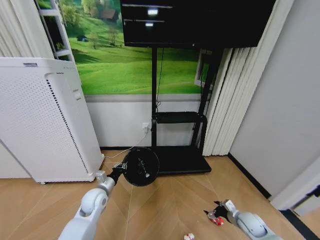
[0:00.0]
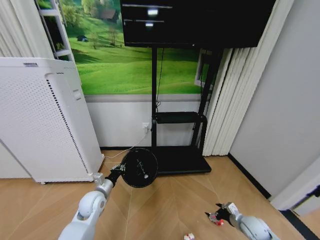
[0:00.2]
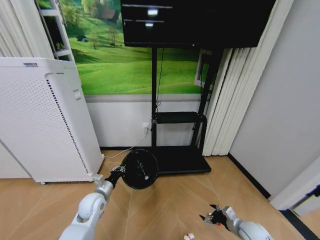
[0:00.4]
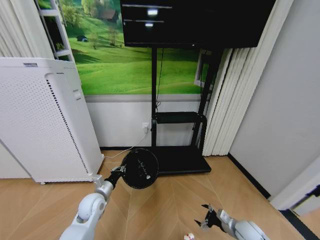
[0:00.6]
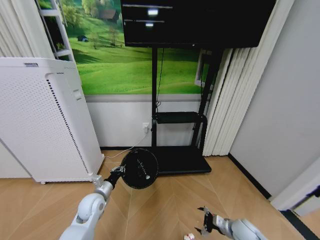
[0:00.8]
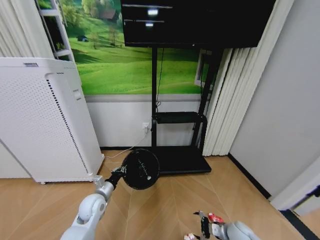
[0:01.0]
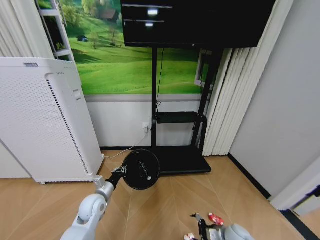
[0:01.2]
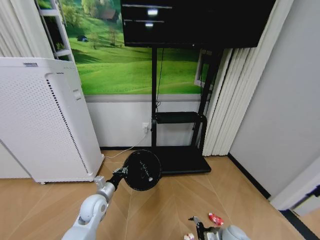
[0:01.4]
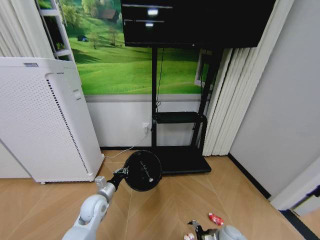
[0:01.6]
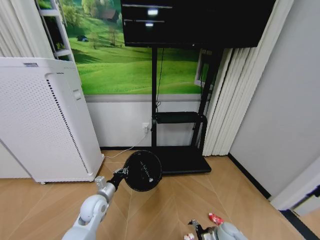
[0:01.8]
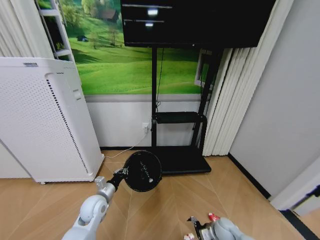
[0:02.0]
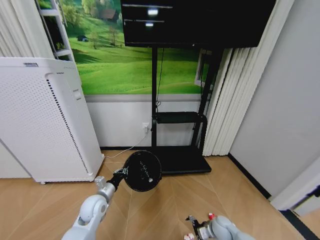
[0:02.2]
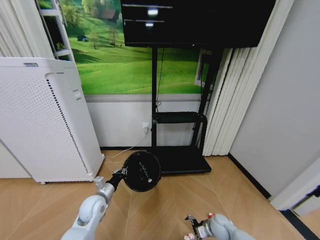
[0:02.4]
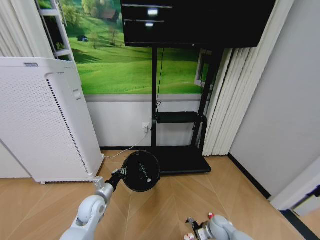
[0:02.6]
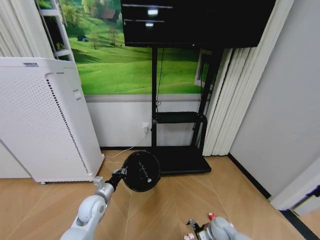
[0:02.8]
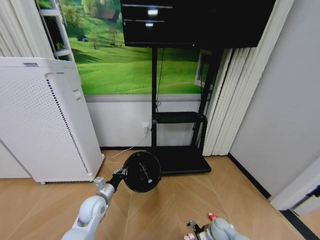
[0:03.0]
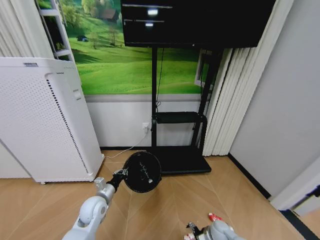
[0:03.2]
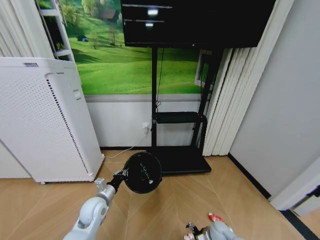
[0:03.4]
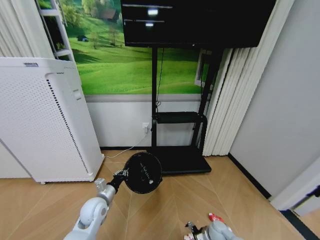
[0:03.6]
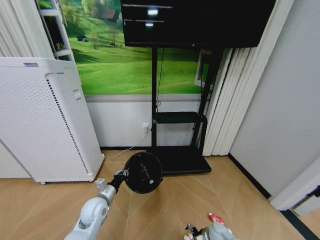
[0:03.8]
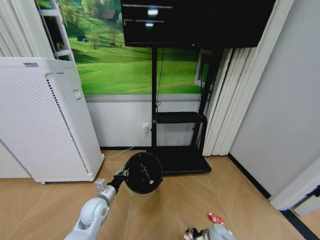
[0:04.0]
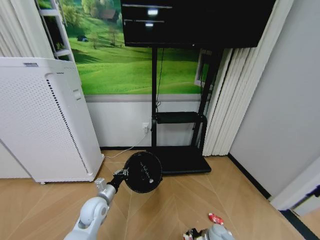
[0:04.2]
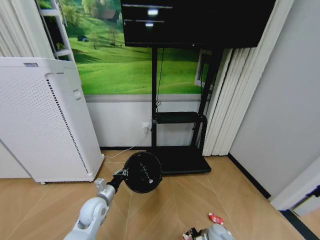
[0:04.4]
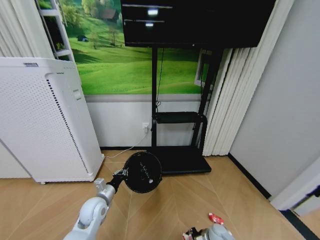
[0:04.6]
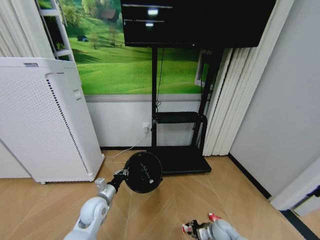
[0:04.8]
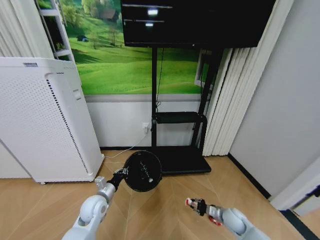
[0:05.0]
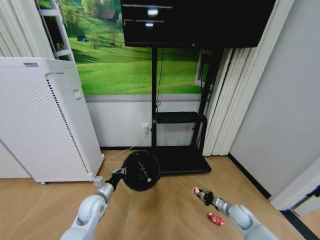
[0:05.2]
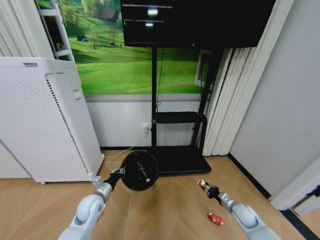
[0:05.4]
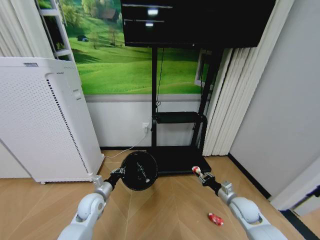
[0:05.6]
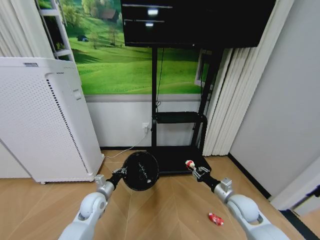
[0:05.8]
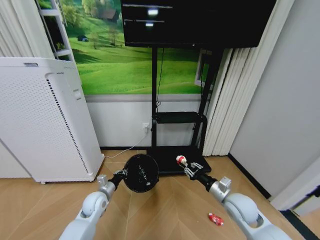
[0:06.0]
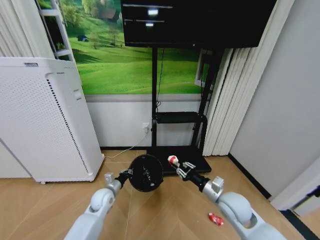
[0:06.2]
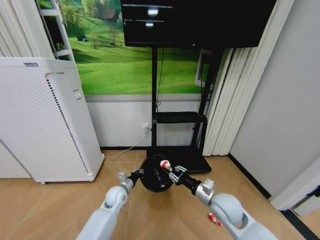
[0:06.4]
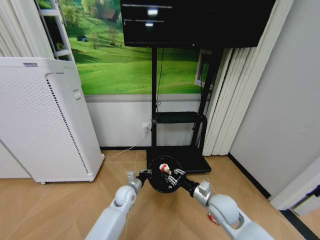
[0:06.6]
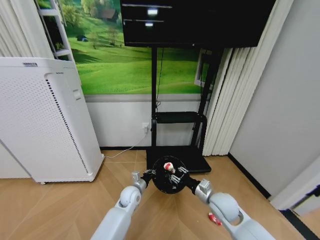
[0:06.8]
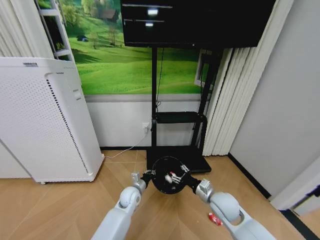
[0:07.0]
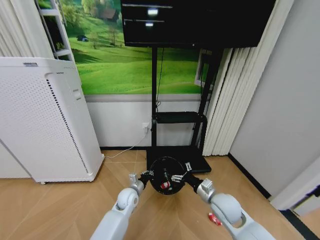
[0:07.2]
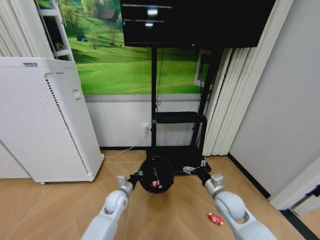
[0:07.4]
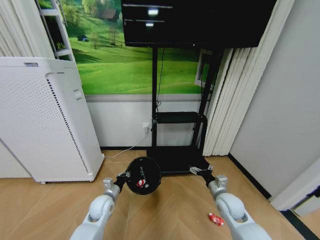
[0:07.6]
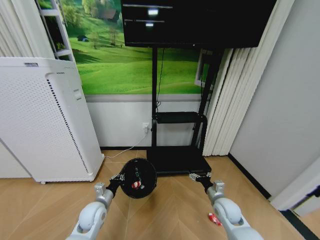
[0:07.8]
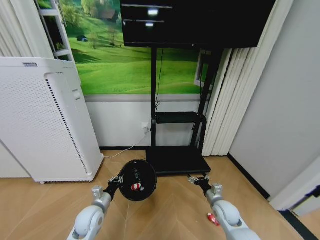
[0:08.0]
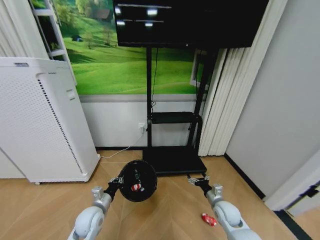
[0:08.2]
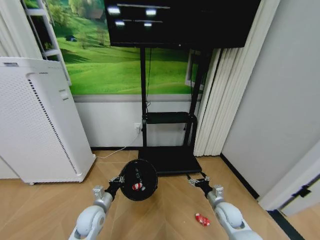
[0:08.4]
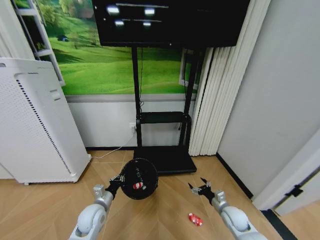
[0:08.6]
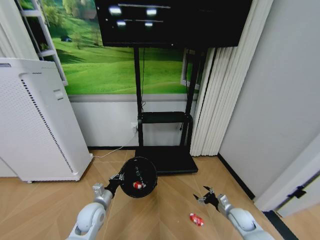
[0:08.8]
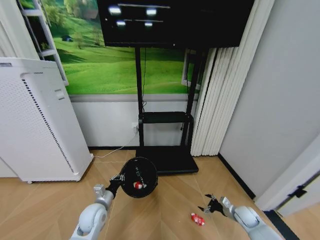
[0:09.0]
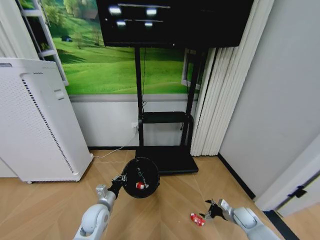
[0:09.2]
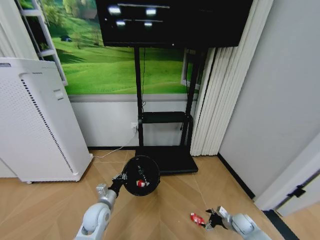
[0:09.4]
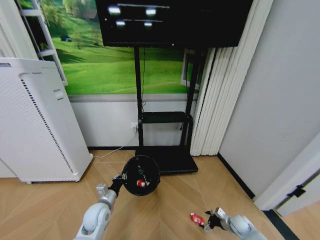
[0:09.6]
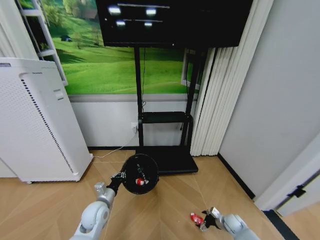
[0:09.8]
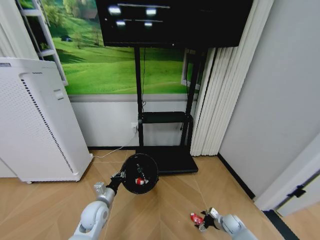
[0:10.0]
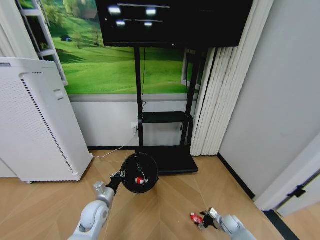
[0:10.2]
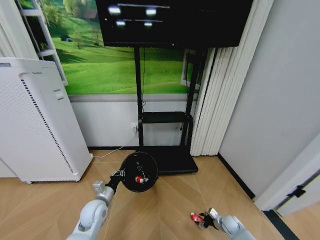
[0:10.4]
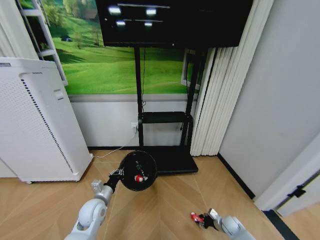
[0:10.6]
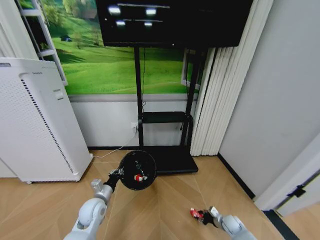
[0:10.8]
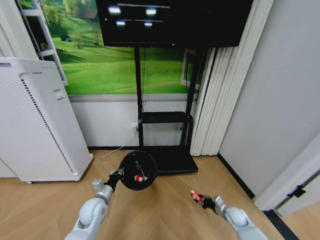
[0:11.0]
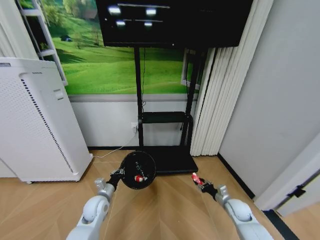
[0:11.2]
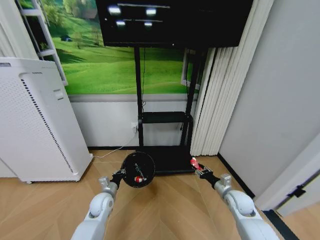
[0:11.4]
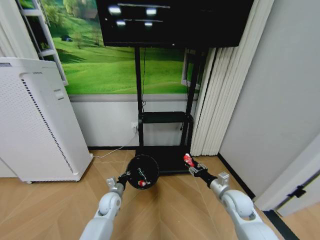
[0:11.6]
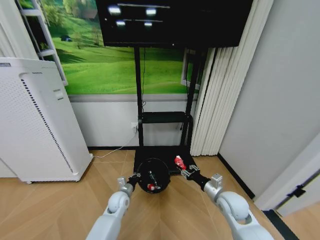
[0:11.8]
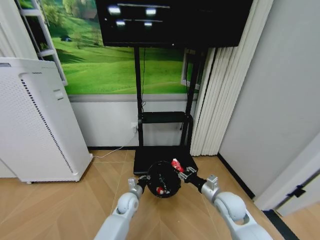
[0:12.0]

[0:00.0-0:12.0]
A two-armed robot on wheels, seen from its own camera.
Task of the whole recording: Pick up the trash bin and place the garbage on the floor into it.
0:00.0 to 0:01.6: The right gripper travels to the left by approximately 10 cm.
0:01.6 to 0:03.0: The right gripper changes place by roughly 5 cm.
0:03.0 to 0:04.4: The right gripper closes.
0:04.4 to 0:06.0: The right gripper travels upward by roughly 25 cm.
0:06.0 to 0:07.6: The right gripper moves about 10 cm to the left and comes back, and opens up. Meanwhile the left gripper reaches roughly 15 cm to the right, then returns.
0:07.6 to 0:09.0: The right gripper shifts about 20 cm to the right and downward.
0:09.0 to 0:10.4: The right gripper goes approximately 10 cm downward, and closes up.
0:10.4 to 0:12.0: The left gripper heads to the right, downward and forward, covering roughly 15 cm, while the right gripper shifts some 30 cm upward and to the left.

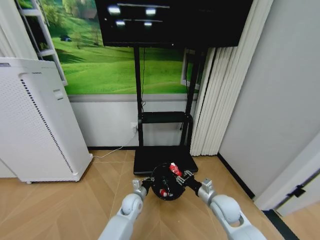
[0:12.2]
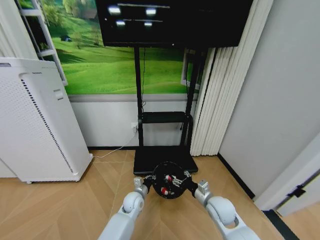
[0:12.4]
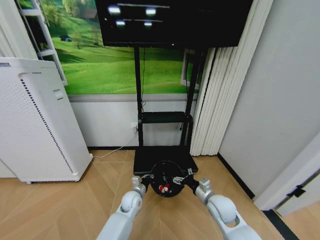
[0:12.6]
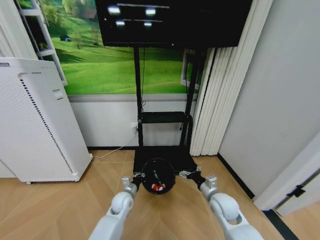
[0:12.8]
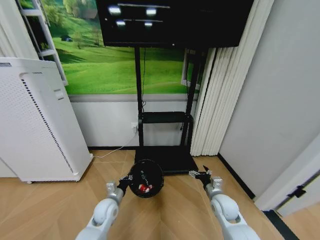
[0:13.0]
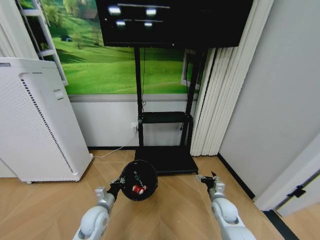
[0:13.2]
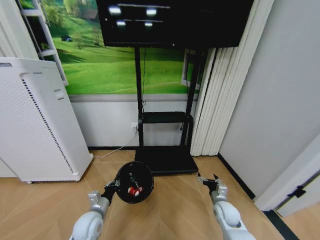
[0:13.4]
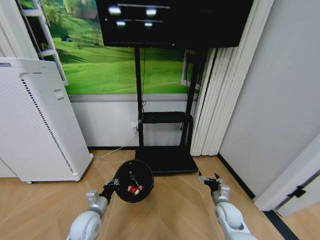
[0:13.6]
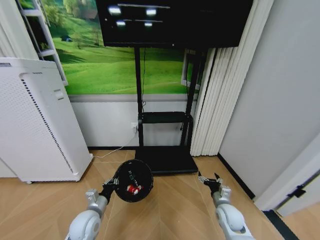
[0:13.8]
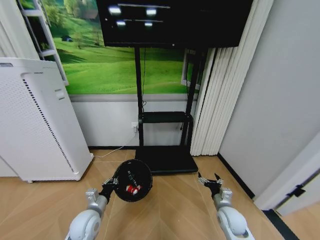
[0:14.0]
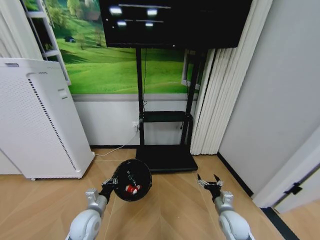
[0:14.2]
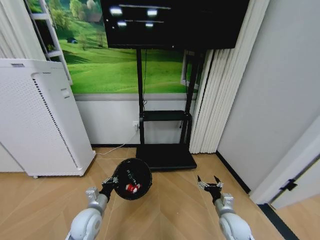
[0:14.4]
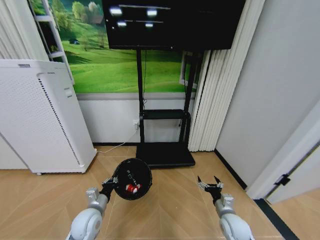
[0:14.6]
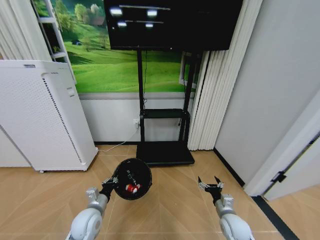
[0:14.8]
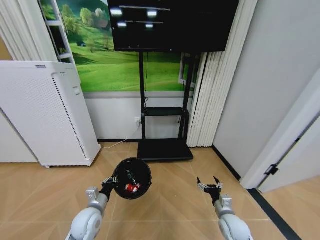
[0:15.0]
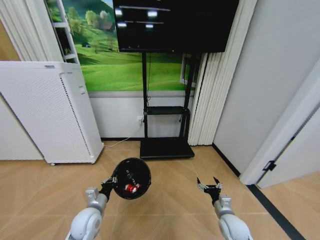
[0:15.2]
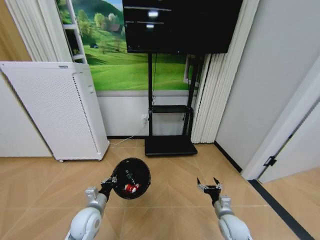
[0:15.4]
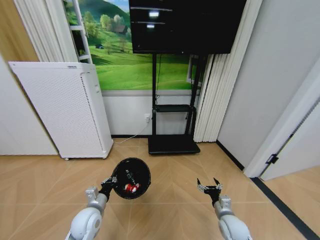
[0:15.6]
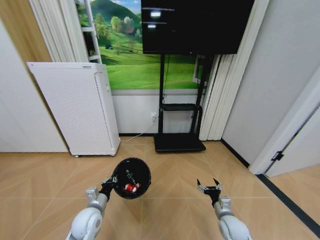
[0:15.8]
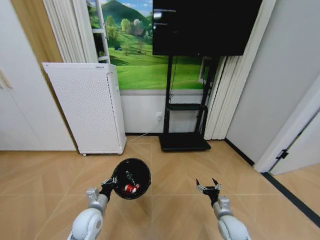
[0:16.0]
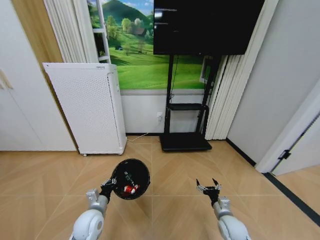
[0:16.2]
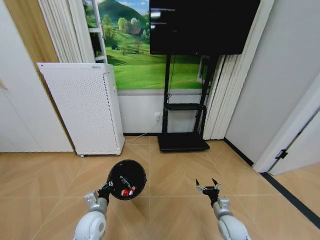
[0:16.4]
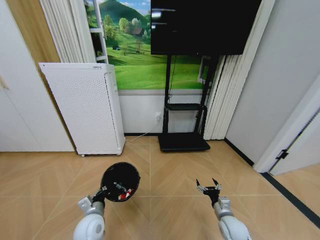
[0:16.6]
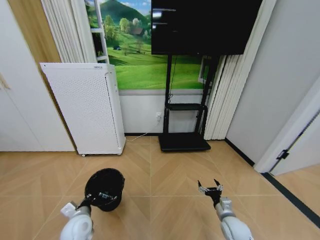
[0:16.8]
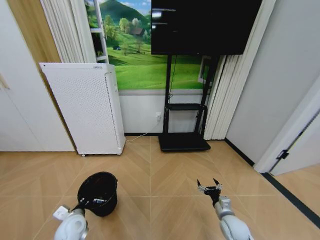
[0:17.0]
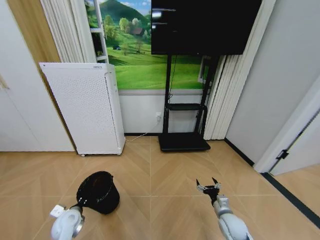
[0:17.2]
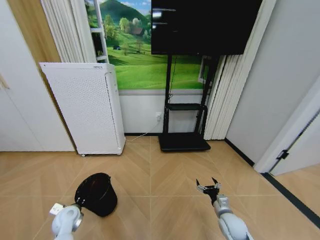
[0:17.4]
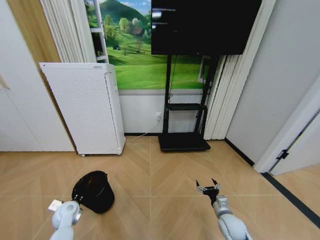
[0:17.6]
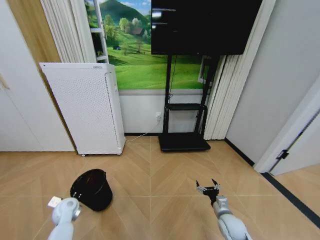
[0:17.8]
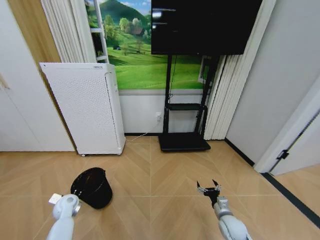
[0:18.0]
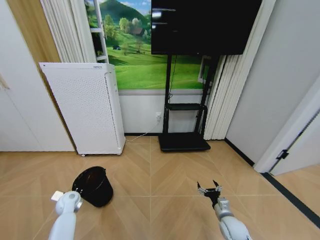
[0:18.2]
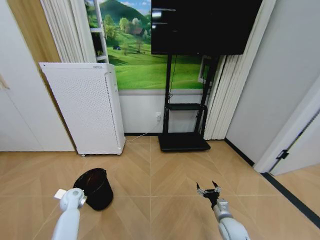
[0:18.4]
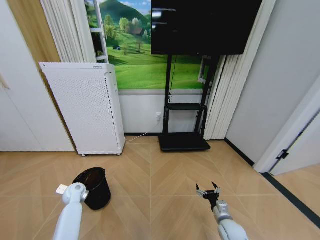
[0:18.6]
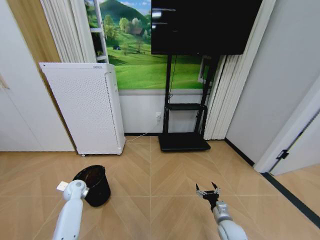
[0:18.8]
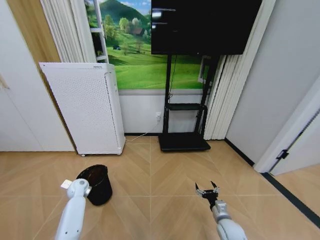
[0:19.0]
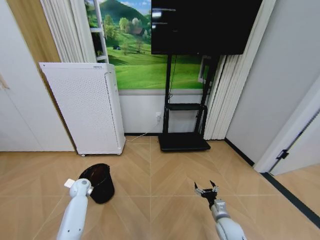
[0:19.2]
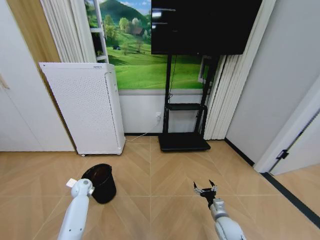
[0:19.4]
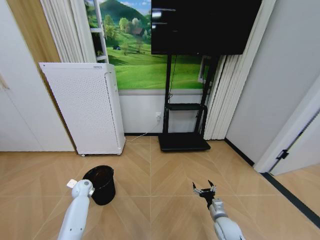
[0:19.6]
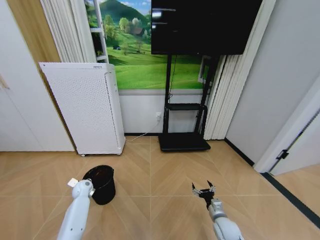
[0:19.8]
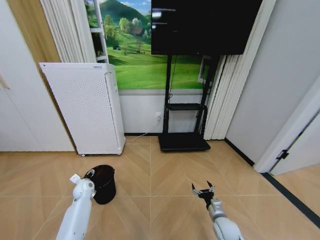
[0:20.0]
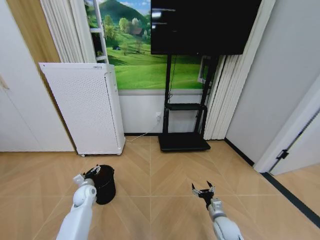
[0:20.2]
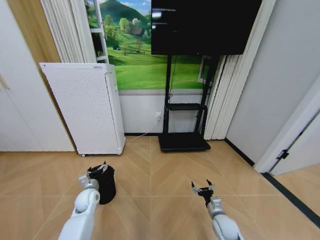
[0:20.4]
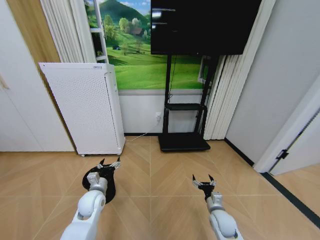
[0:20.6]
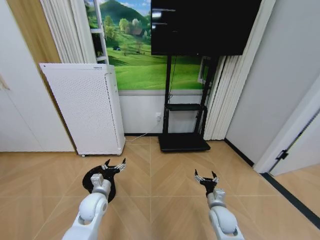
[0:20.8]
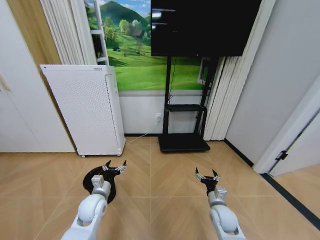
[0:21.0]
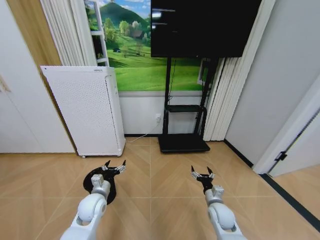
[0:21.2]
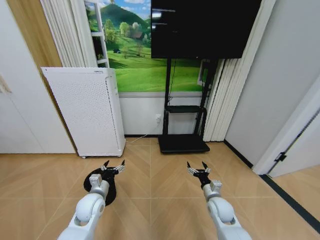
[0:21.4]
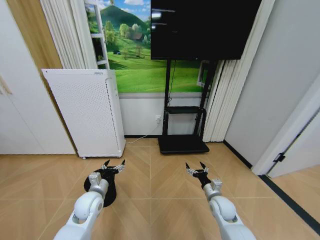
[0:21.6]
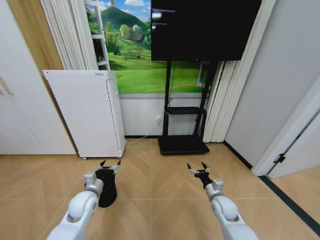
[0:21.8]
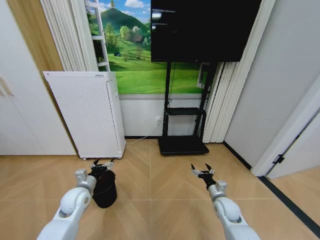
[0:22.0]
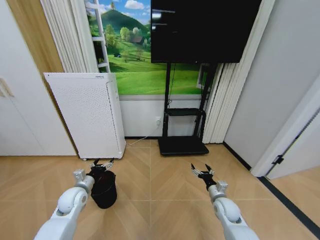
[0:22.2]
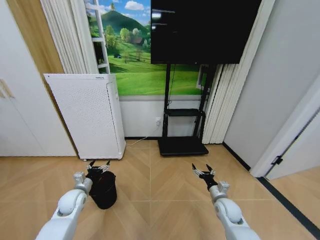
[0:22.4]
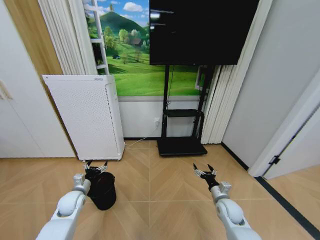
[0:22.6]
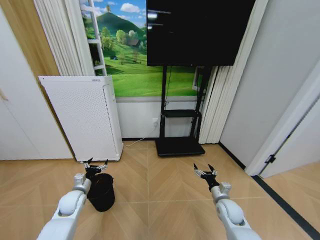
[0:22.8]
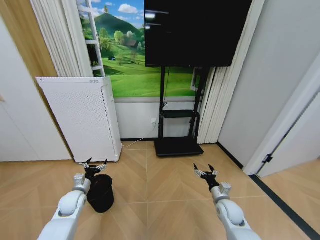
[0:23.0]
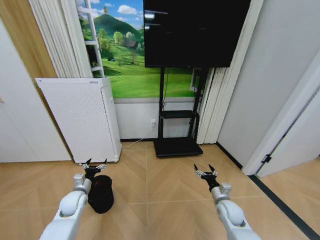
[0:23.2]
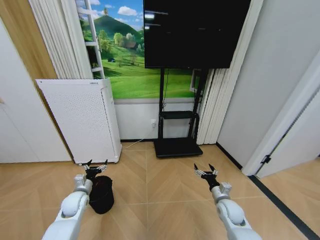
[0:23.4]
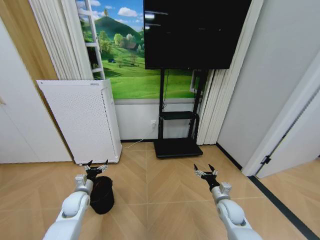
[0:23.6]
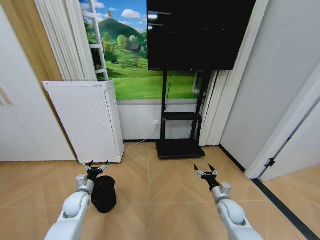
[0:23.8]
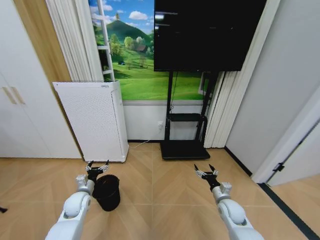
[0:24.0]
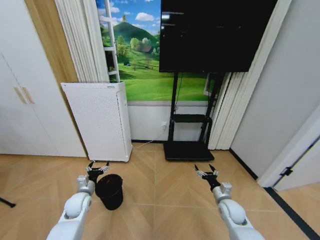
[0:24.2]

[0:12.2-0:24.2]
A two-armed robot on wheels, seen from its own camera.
Task of the whole recording: Pick up the trash bin and place the garbage on the floor into it.
0:12.2 to 0:13.8: The right gripper shifts roughly 5 cm downward, and opens its fingers. Meanwhile the left gripper heads to the left, backward and upward, covering approximately 20 cm.
0:16.6 to 0:18.2: The left gripper moves to the left and forward, roughly 20 cm.
0:18.2 to 0:19.8: The left gripper heads forward, covering roughly 10 cm, and opens up.
0:19.8 to 0:21.2: The left gripper moves to the right, backward and upward, about 20 cm, and opens up. The right gripper shifts about 5 cm upward.
0:21.2 to 0:22.6: The right gripper heads to the right, covering some 5 cm; the left gripper heads to the left, covering about 10 cm.
